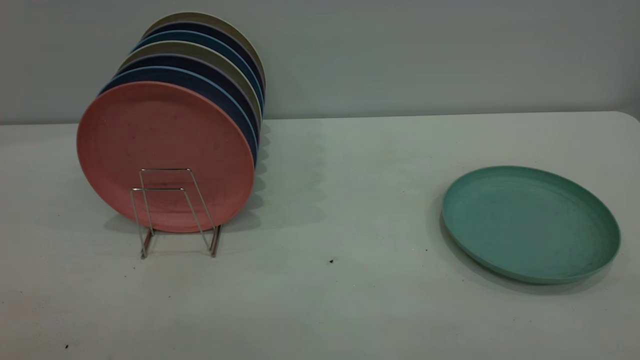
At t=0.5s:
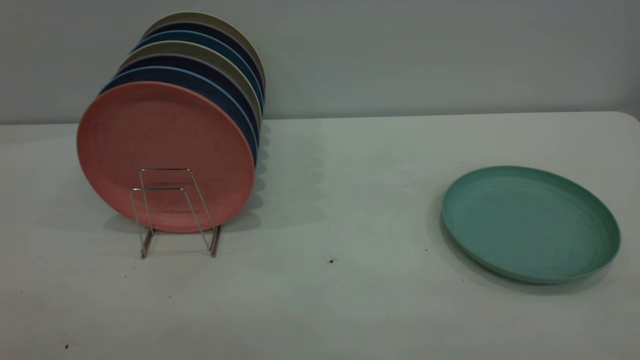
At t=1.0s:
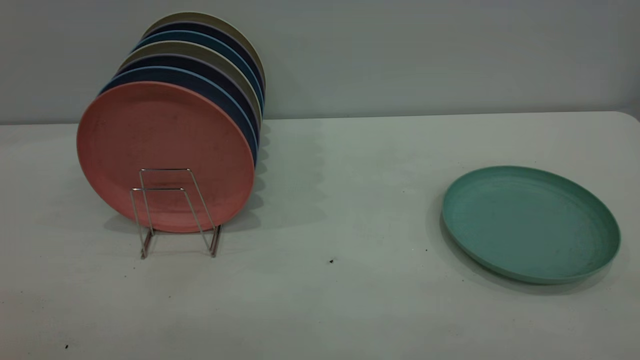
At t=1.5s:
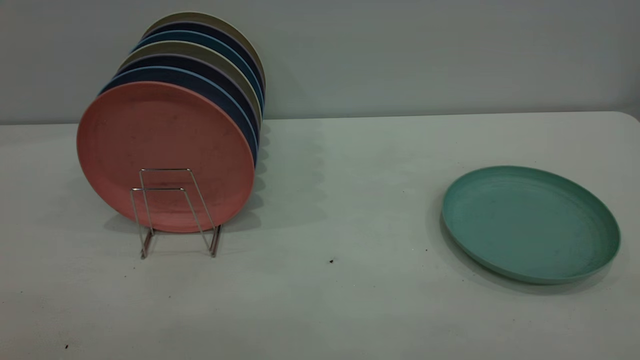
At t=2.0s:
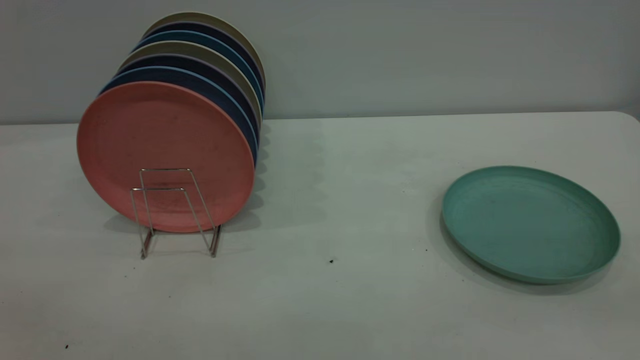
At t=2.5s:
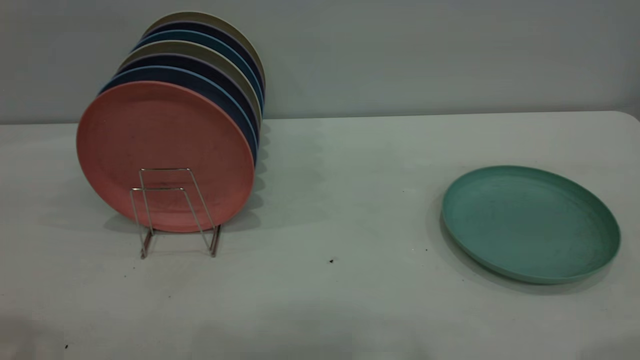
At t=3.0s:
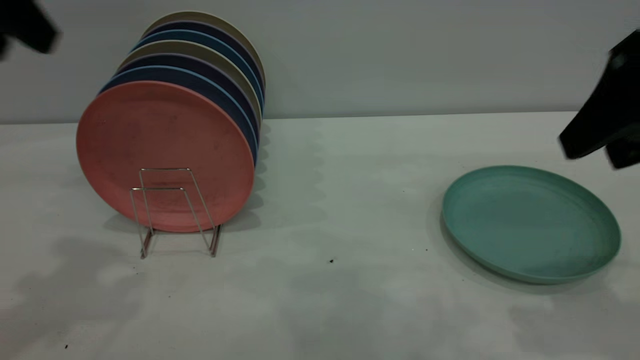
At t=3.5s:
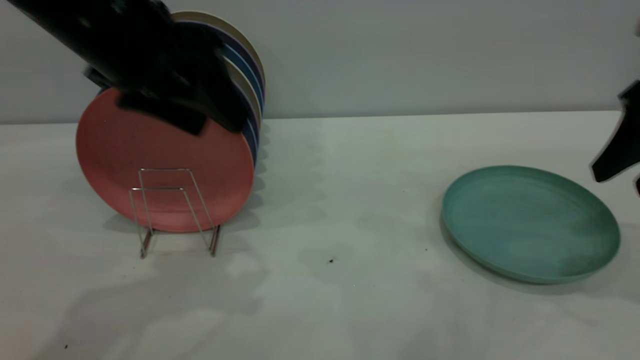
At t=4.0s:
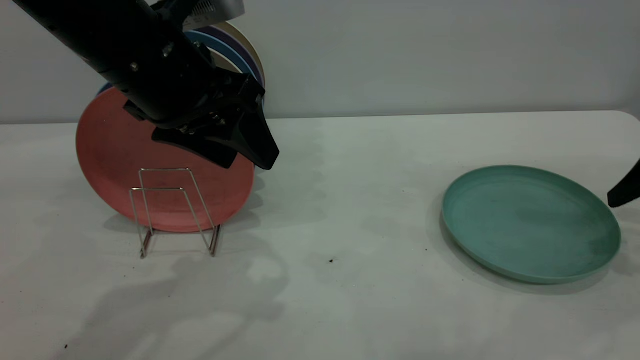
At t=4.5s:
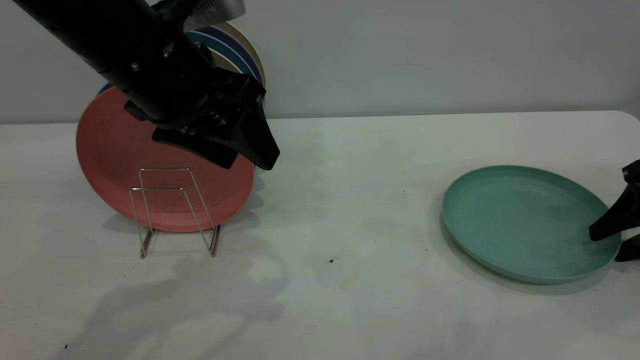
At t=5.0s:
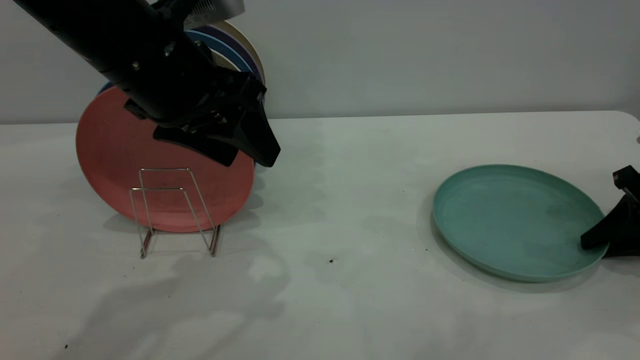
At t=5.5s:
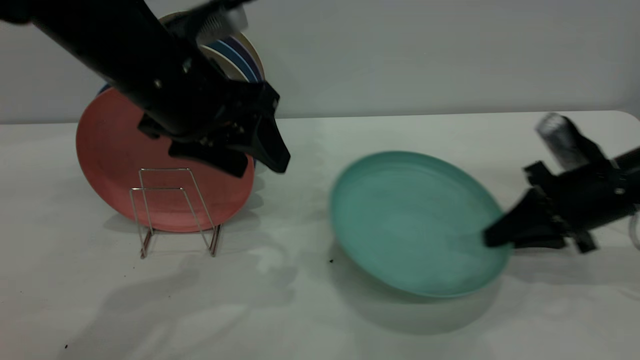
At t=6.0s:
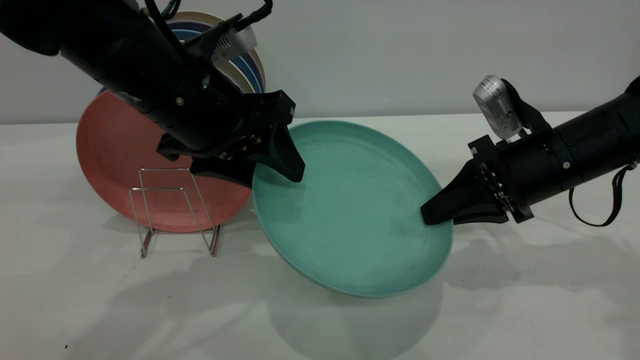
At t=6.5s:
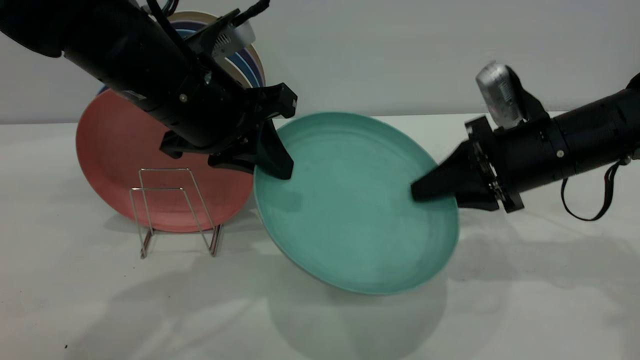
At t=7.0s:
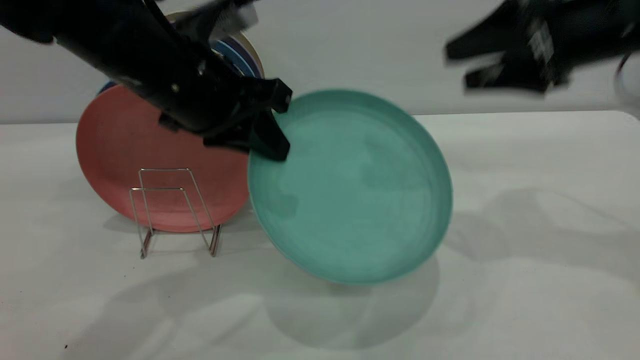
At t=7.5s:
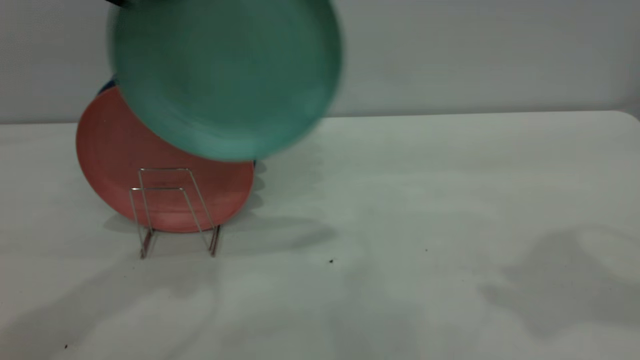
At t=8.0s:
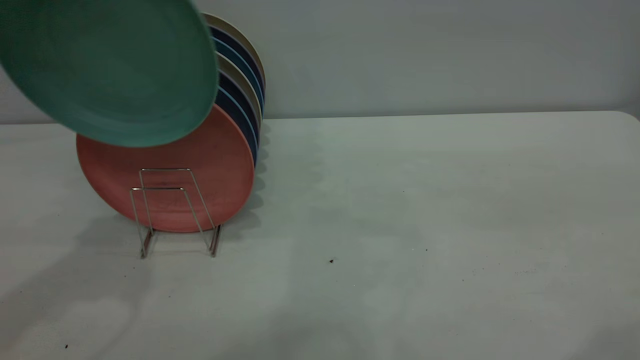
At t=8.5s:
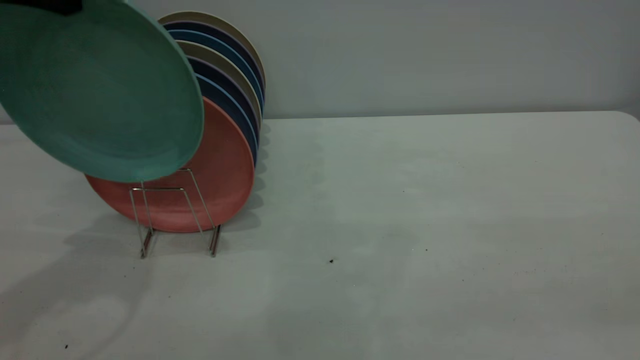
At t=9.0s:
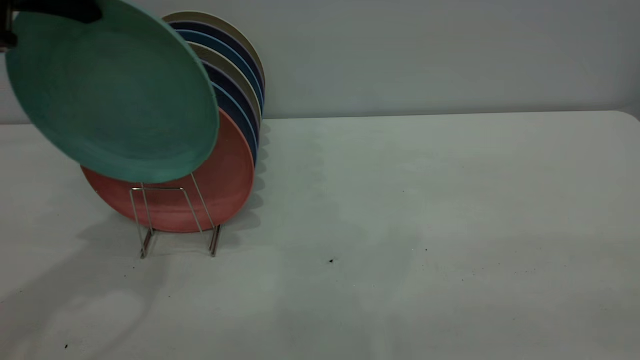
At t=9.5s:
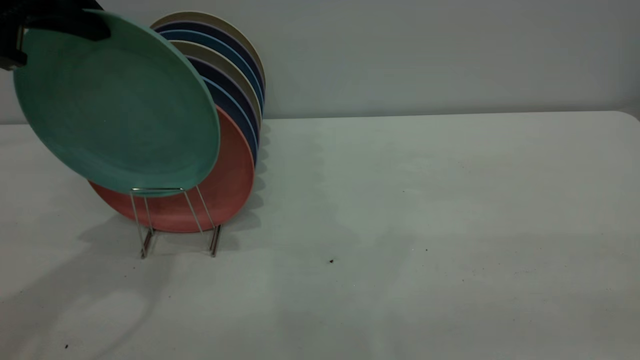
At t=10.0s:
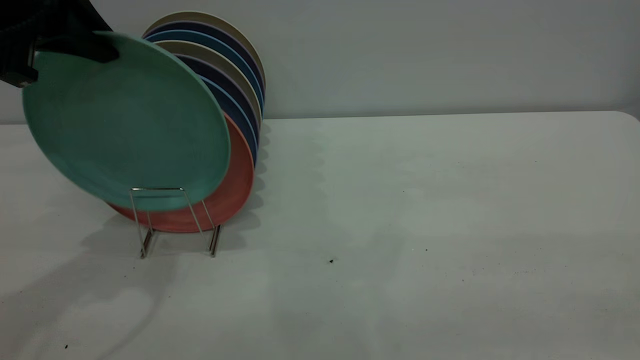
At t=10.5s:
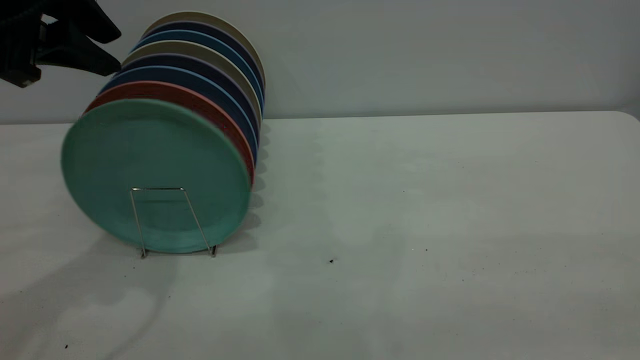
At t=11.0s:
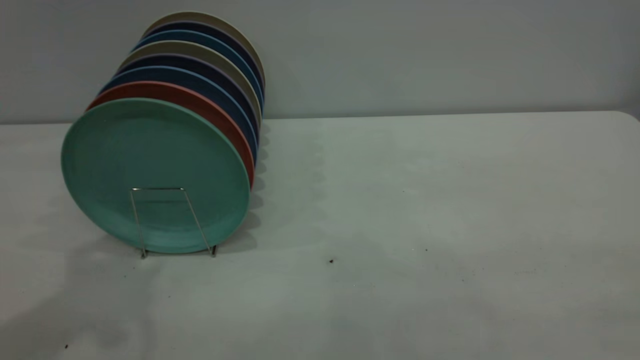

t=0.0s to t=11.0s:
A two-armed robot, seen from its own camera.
Task of the whole recording: the right gripper grasp the green plate, the right gripper pass the green plate to the left gripper, and the left gripper place the green plate on the plate rack.
Step, t=0.0s to t=5.0s: Pick up the plate with the right gripper.
Step, t=5.5s to t=6.5s: Pass the plate from the right gripper to the left gripper.
Step, t=7.0s to t=10.5s: Place the plate on the shelf.
t=2.0s to t=3.5s: The left gripper travels forward, to the right and downward by about 35 cm. The right gripper travels forward and downward by about 30 cm.
t=3.5s to t=5.5s: The right gripper is displaced downward and to the left by approximately 15 cm, and closes up.
t=5.5s to t=7.5s: The left gripper heads upward and to the left, covering some 15 cm, and closes up. Meanwhile the right gripper goes approximately 30 cm upward, and opens up.
t=7.5s to t=9.0s: The right gripper is displaced backward by some 25 cm. Meanwhile the left gripper changes place by about 5 cm.
t=9.0s to t=11.0s: The left gripper shifts some 10 cm upward and backward, and opens up.
